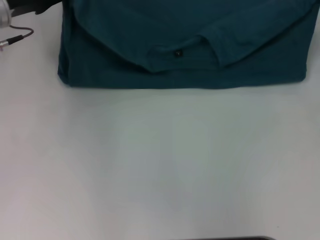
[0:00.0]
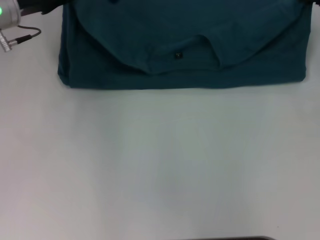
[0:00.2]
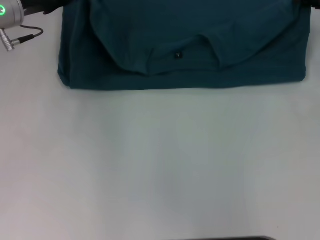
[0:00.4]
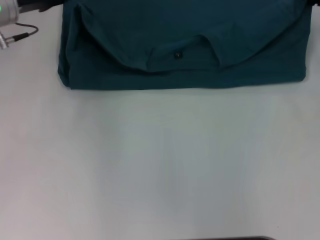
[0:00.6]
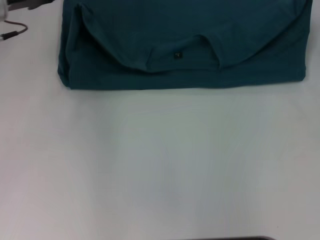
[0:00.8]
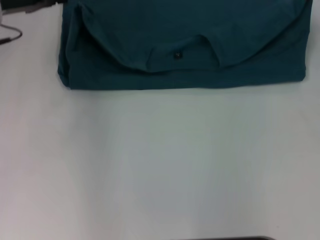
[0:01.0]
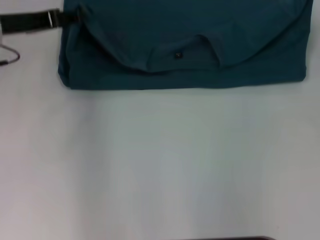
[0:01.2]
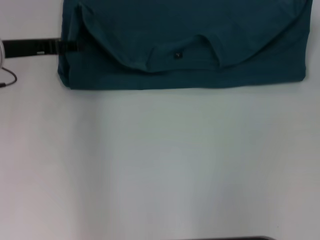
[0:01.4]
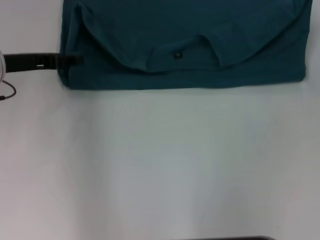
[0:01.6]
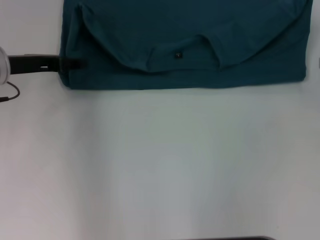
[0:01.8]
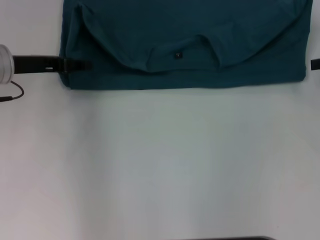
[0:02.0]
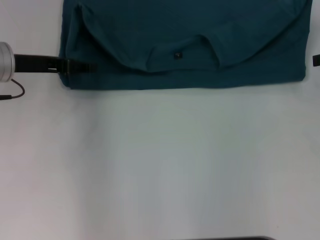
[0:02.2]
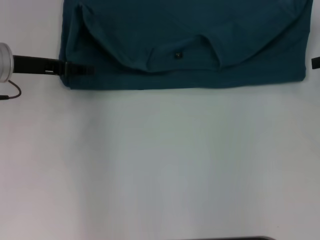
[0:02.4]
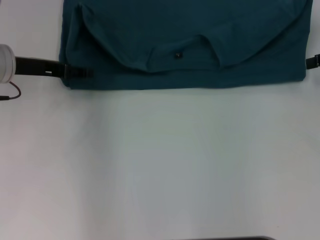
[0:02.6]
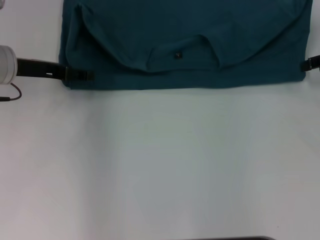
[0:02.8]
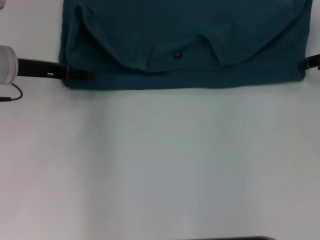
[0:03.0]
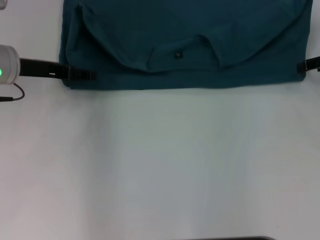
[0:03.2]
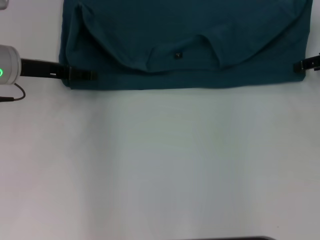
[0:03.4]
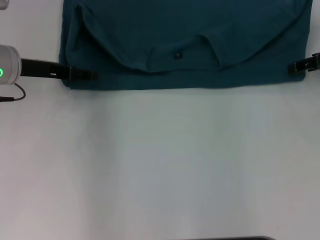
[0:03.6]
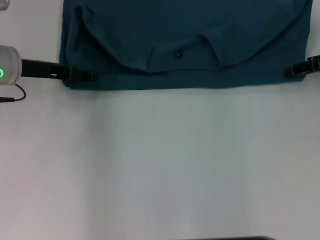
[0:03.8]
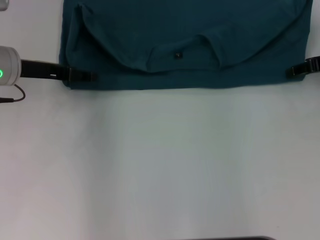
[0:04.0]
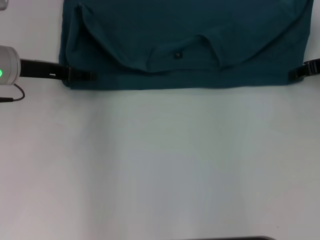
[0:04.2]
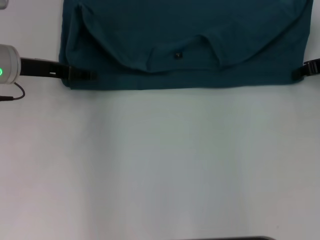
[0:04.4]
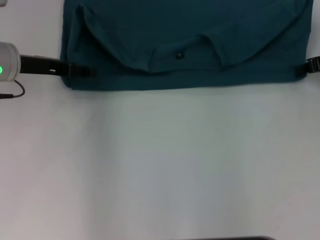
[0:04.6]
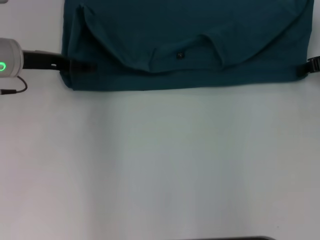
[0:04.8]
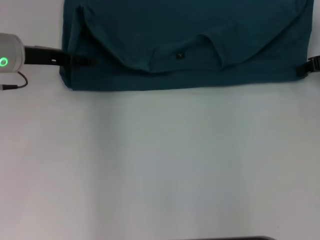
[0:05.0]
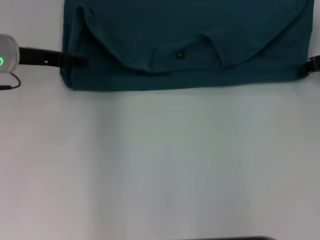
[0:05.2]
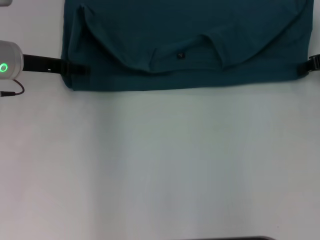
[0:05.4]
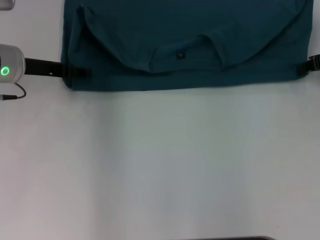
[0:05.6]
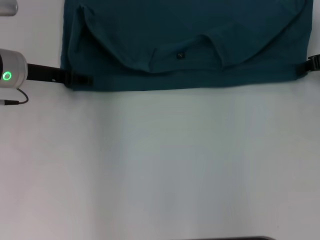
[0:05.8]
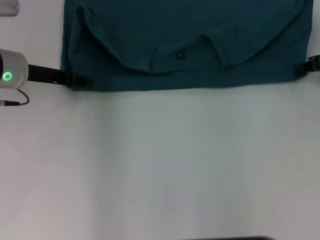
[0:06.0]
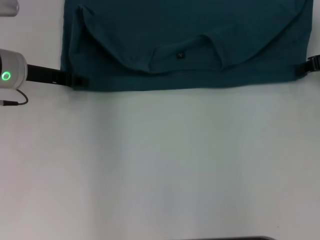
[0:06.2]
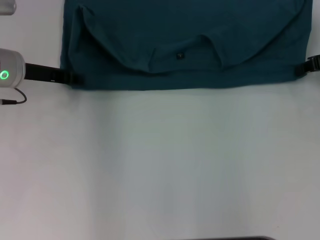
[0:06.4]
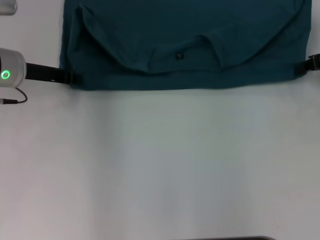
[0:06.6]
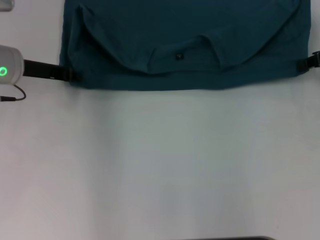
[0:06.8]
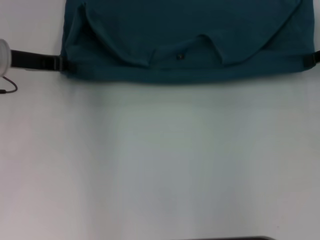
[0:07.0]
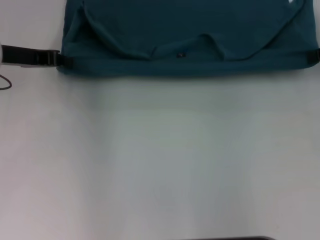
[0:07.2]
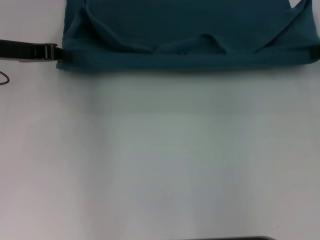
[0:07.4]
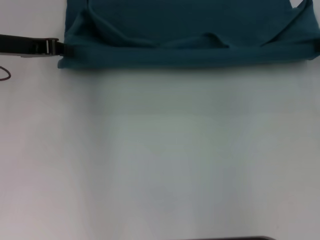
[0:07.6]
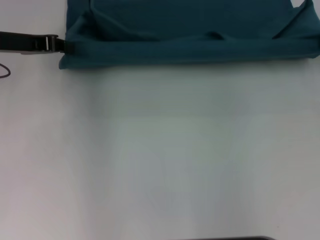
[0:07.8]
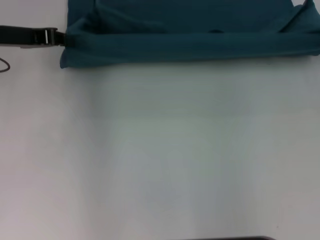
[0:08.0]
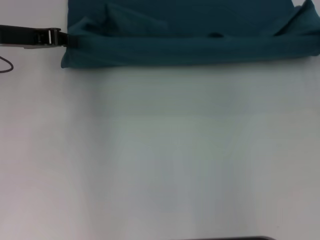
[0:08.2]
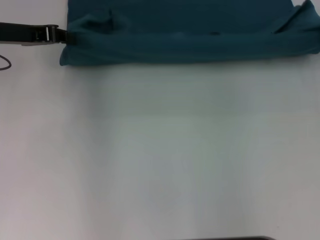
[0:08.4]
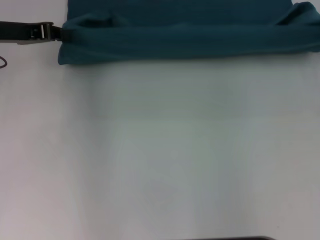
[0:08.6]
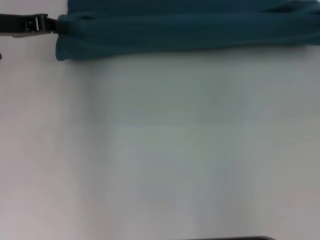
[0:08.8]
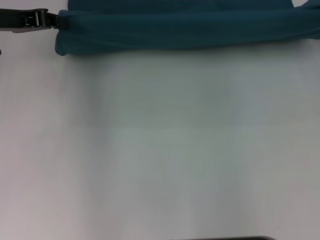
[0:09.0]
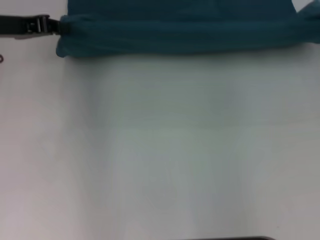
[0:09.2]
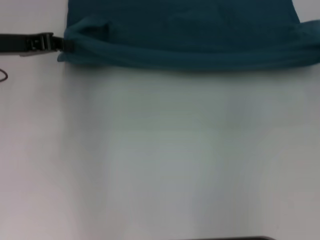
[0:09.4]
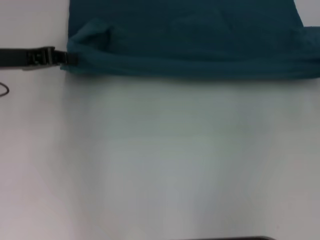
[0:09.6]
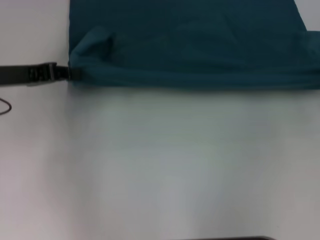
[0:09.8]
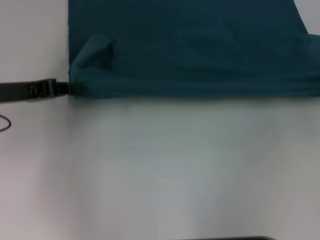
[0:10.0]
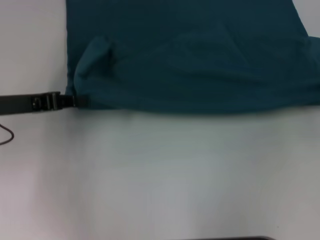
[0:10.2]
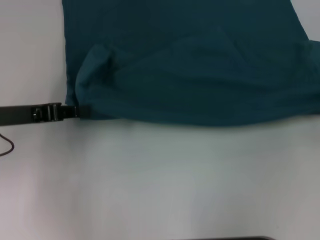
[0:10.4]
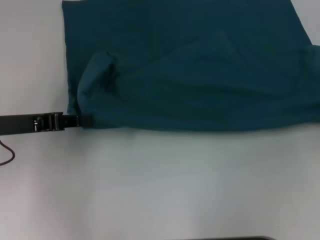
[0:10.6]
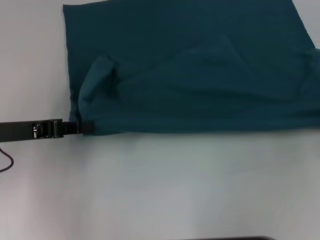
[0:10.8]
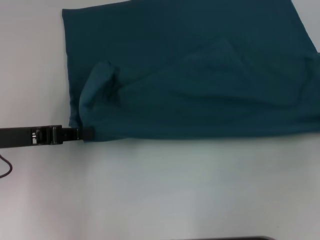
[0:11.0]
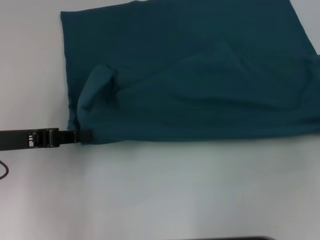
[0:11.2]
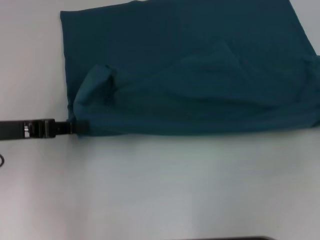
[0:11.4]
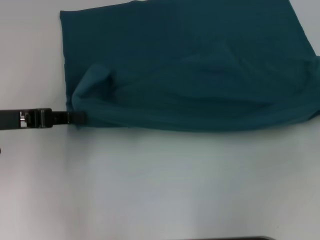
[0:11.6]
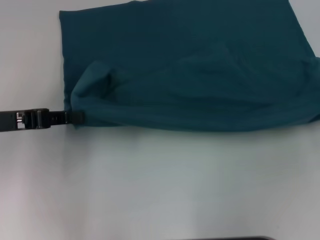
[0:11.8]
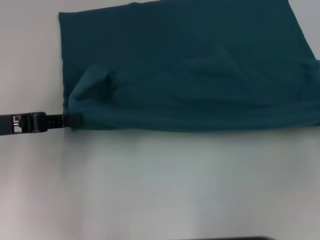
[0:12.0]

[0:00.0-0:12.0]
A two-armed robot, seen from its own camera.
Step, 0:01.0 to 0:11.2: Pull the clothes with your left hand.
Step, 0:01.0 to 0:11.2: Pull the clothes with your right hand.
0:00.0 to 0:01.6: The two grippers go approximately 5 cm backward. The left gripper opens up; the right gripper opens up.
0:04.4 to 0:06.0: The grippers make only small movements.
0:06.0 to 0:07.6: The left gripper moves roughly 5 cm, and closes up. Meanwhile the right gripper shifts by approximately 5 cm.
0:07.6 to 0:09.0: The grippers stay close to where they were, moving slightly.
0:09.0 to 0:10.4: The two grippers go roughly 15 cm backward and downward.
0:10.4 to 0:12.0: The grippers stay close to where they were, moving slightly.

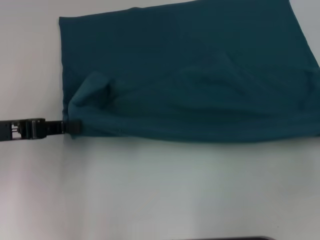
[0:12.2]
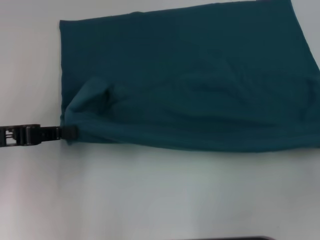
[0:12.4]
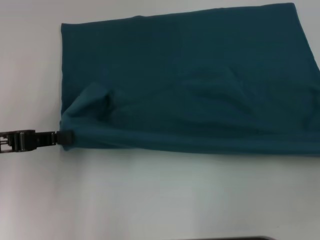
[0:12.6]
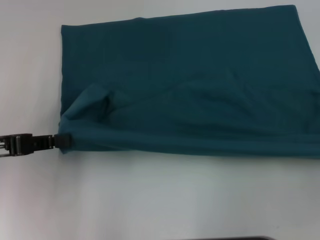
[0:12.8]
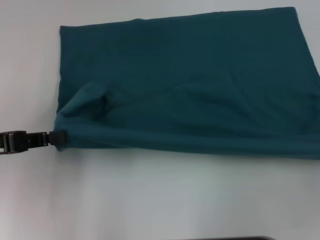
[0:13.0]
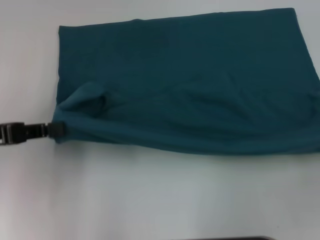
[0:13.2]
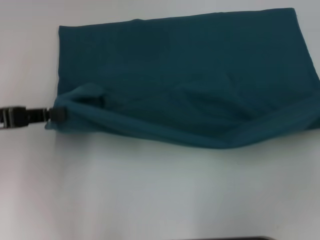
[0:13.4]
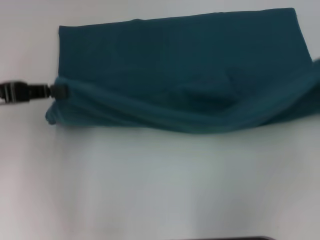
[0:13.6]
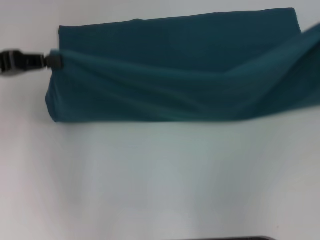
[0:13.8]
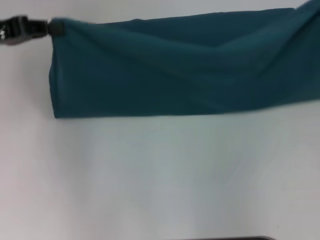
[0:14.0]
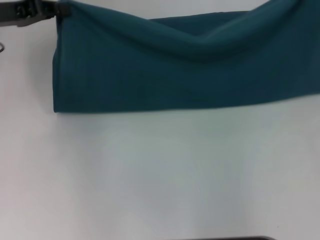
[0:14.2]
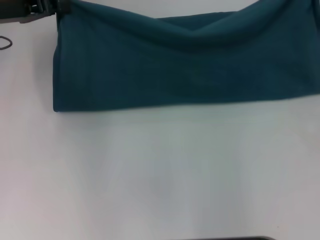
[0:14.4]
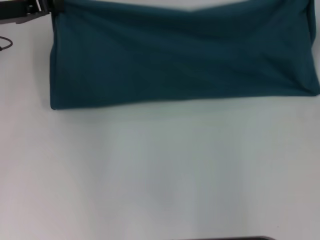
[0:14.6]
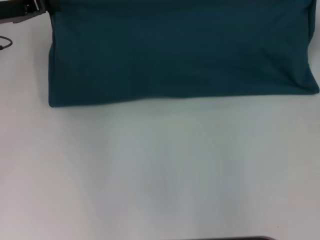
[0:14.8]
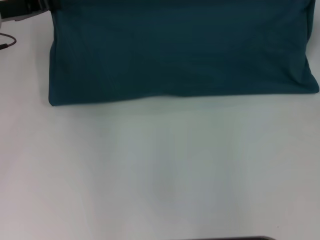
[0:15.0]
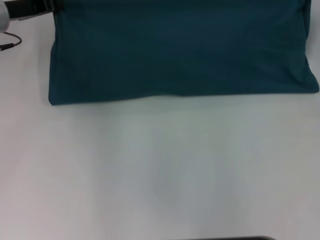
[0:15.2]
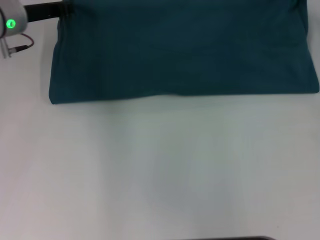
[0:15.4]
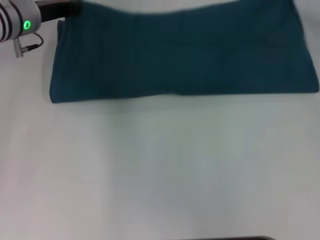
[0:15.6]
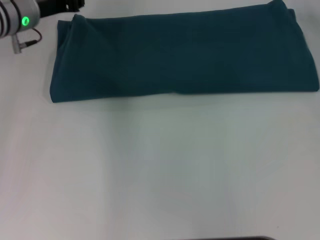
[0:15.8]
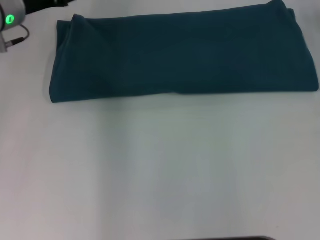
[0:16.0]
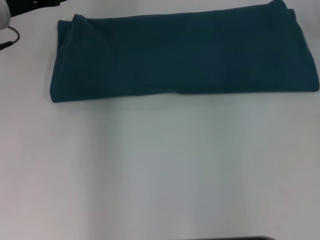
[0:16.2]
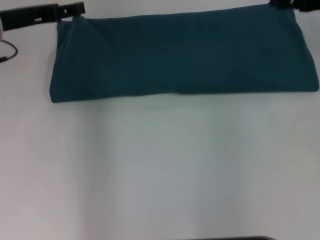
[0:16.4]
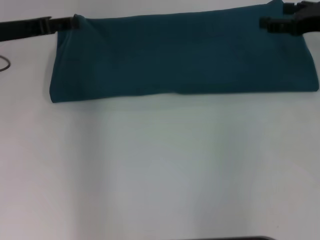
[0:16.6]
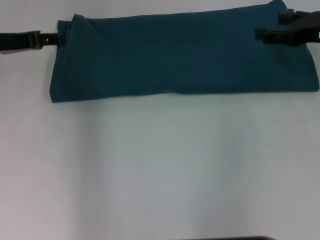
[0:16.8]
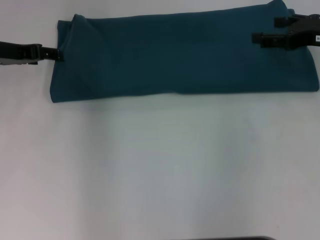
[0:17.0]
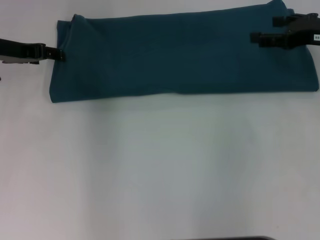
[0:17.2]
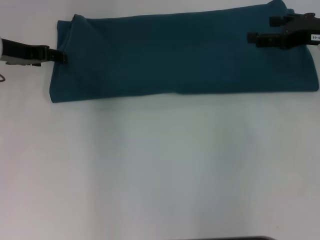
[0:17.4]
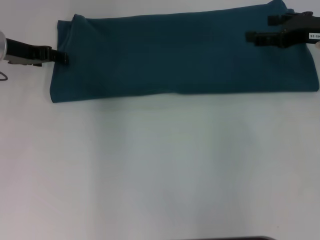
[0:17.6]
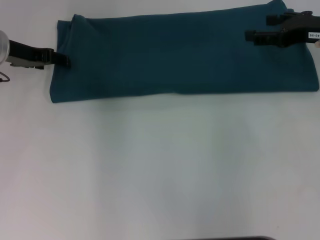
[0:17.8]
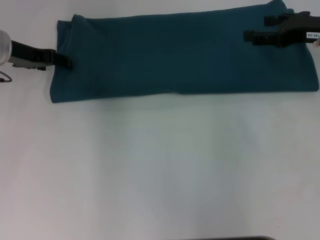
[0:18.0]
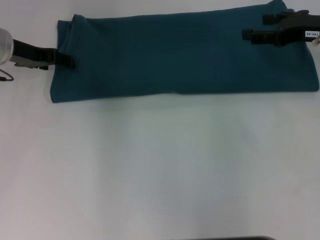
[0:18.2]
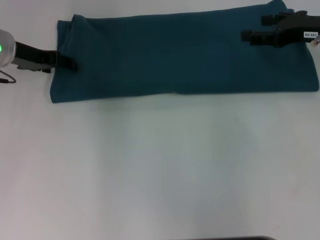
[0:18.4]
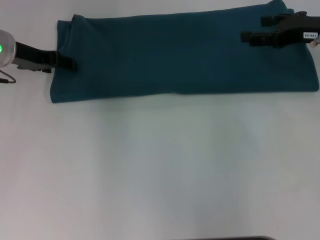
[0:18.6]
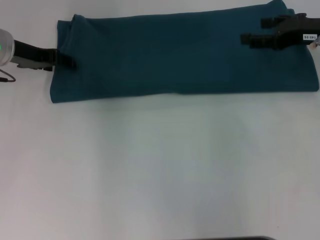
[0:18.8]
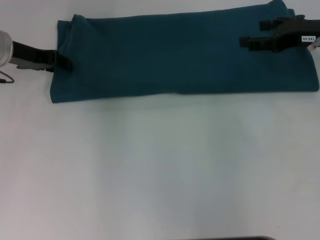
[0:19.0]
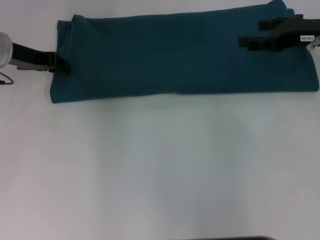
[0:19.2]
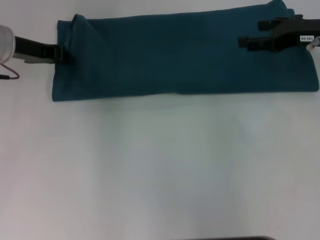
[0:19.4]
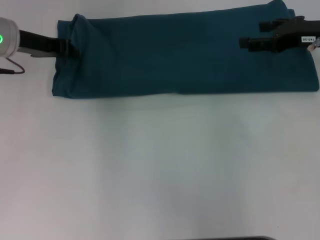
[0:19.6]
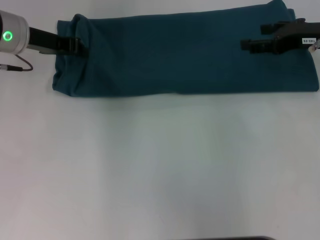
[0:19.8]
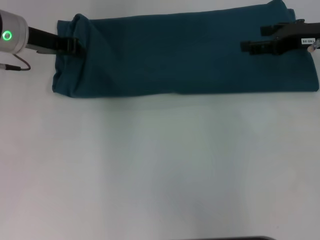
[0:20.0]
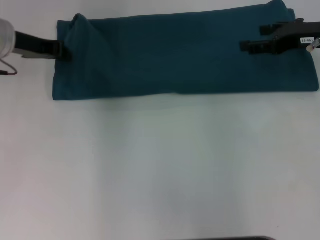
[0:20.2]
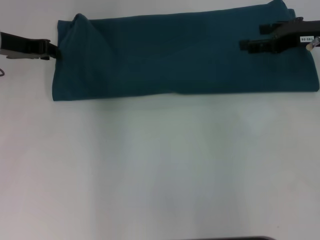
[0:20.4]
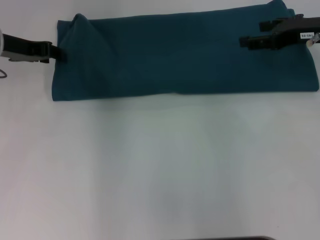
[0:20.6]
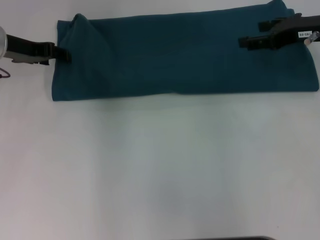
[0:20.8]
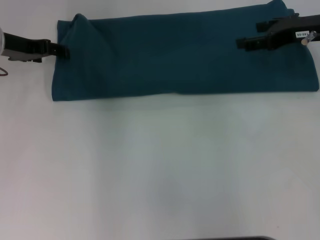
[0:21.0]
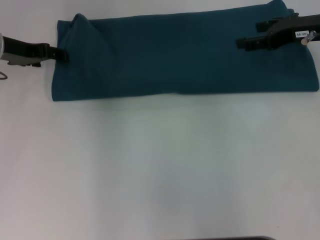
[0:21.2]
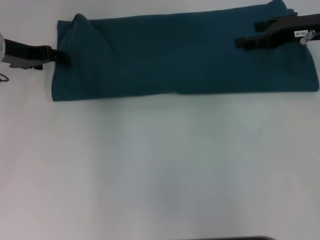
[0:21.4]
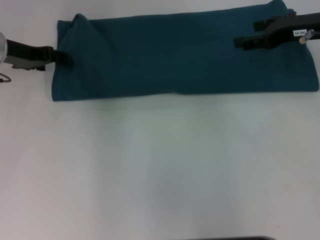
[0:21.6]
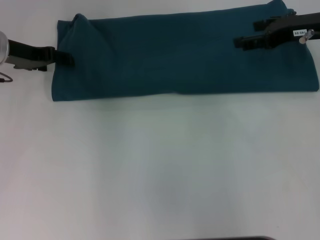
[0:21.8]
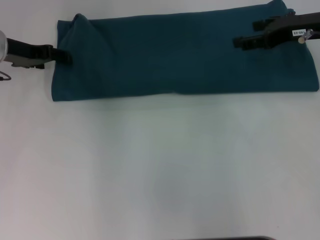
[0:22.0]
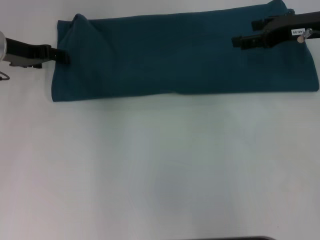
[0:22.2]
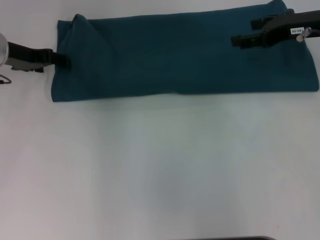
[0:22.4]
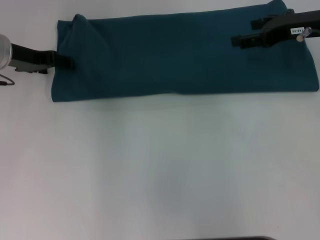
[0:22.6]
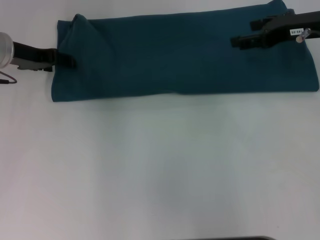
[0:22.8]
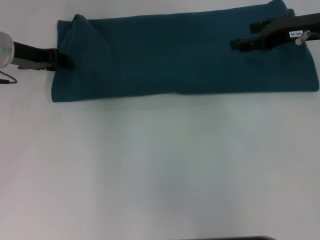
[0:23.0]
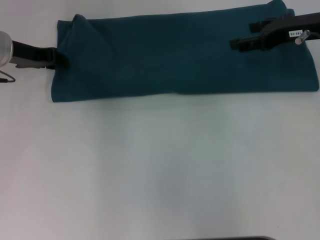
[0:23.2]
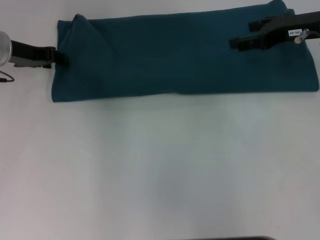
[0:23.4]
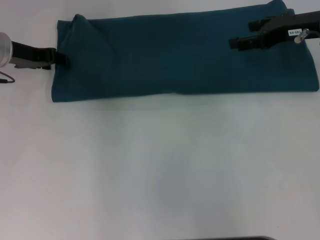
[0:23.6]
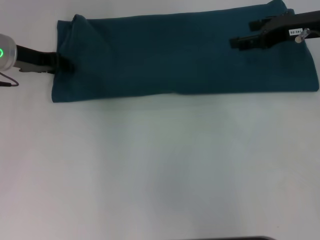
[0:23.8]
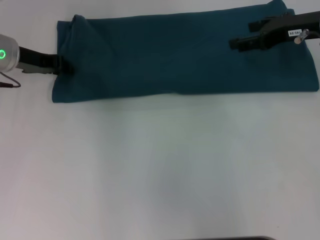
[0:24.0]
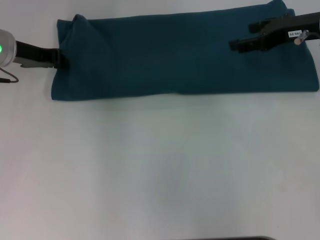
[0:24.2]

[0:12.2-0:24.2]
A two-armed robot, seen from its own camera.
Step, 0:12.2 to 0:15.8: Fold the clothes to the left.
Step, 0:12.2 to 0:15.8: Fold the clothes to the right.
0:12.2 to 0:13.8: The right gripper travels forward and upward by approximately 10 cm, while the left gripper heads forward, covering roughly 5 cm.
0:13.8 to 0:15.2: The right gripper travels forward and to the left by approximately 10 cm. The left gripper heads forward and to the right, covering some 15 cm.
0:15.2 to 0:16.6: Both grippers travel together backward, some 5 cm. The right gripper opens its fingers, while the left gripper opens up.
0:16.6 to 0:18.2: The left gripper moves about 5 cm.
0:18.2 to 0:19.8: The left gripper closes up.
0:19.8 to 0:21.2: The left gripper opens.
0:21.2 to 0:22.6: The grippers stay close to where they were, moving slightly.
0:22.6 to 0:24.2: The left gripper closes up.
